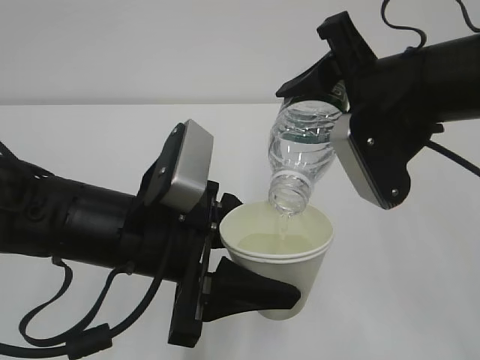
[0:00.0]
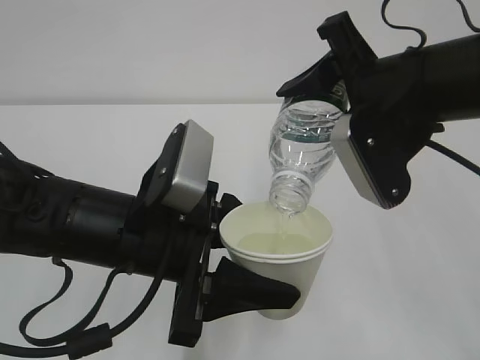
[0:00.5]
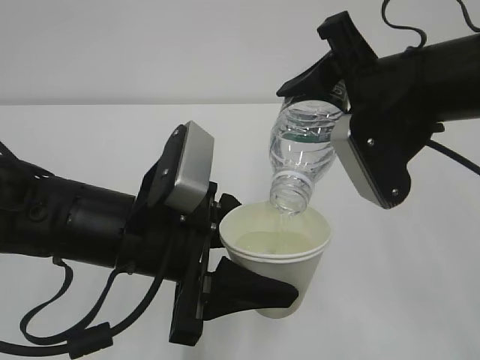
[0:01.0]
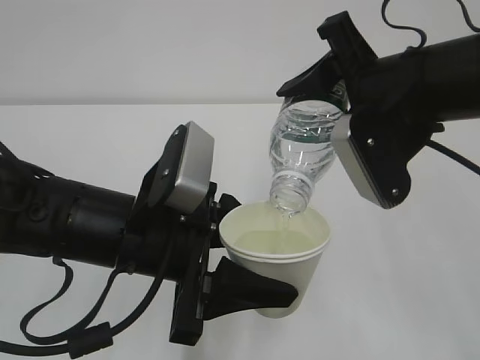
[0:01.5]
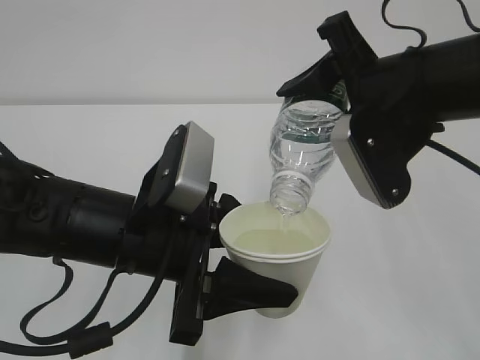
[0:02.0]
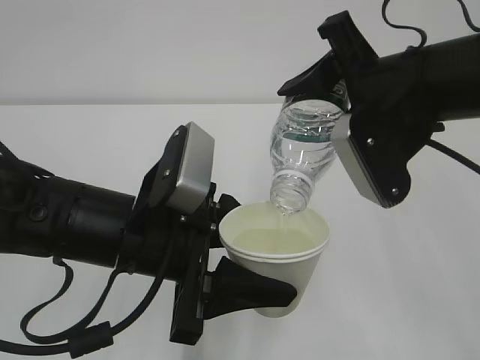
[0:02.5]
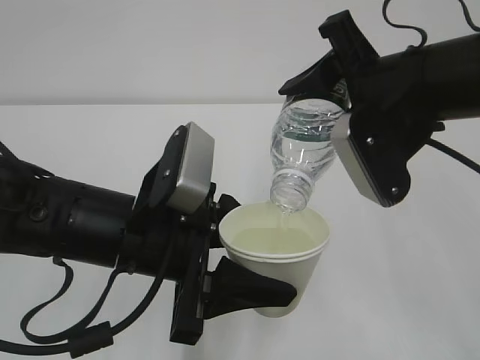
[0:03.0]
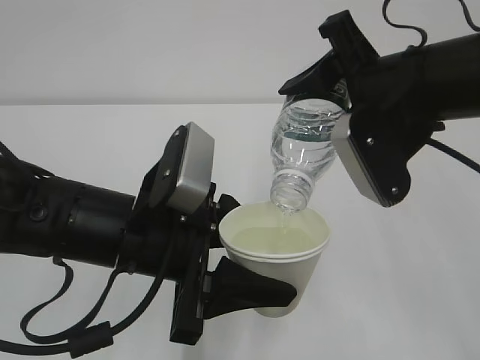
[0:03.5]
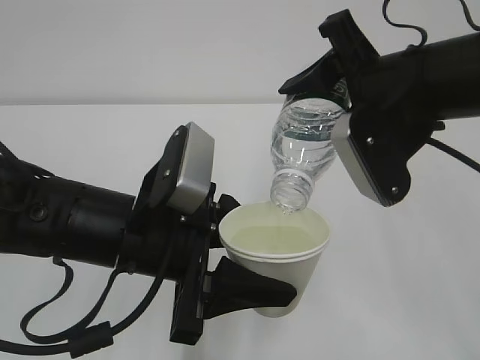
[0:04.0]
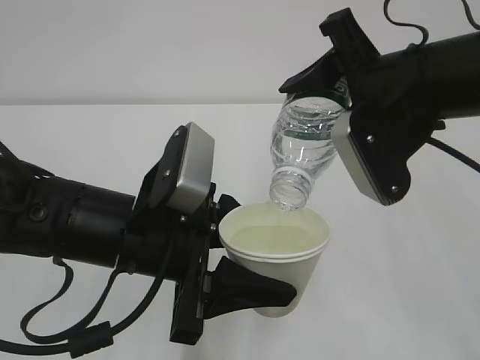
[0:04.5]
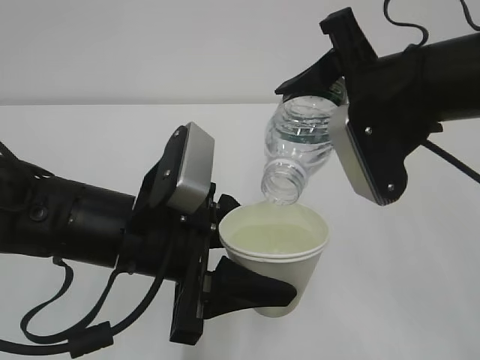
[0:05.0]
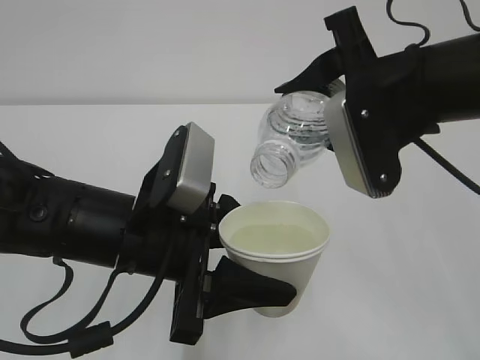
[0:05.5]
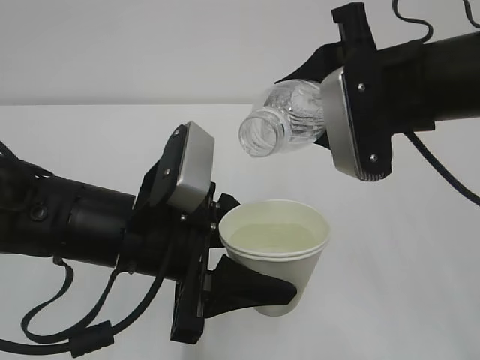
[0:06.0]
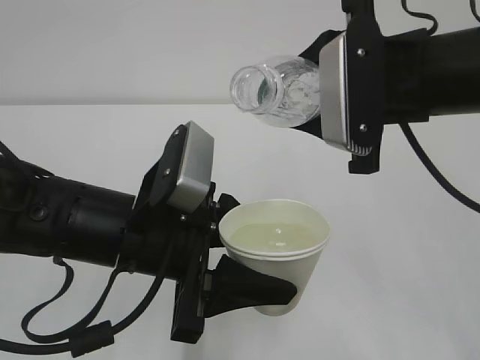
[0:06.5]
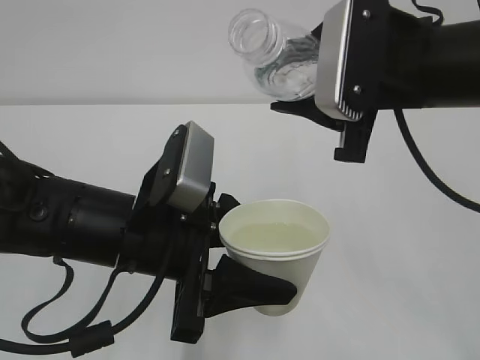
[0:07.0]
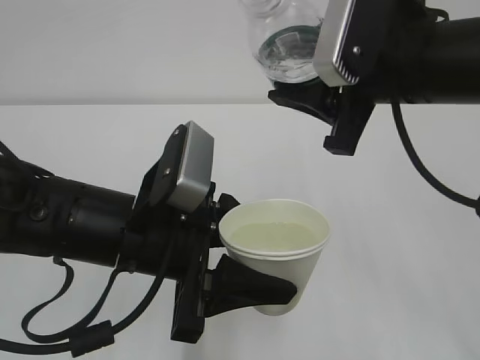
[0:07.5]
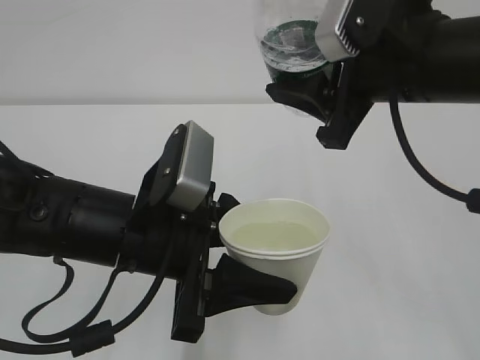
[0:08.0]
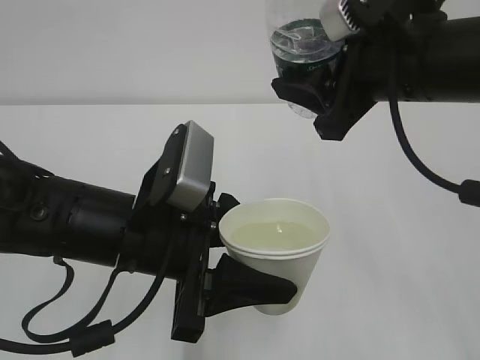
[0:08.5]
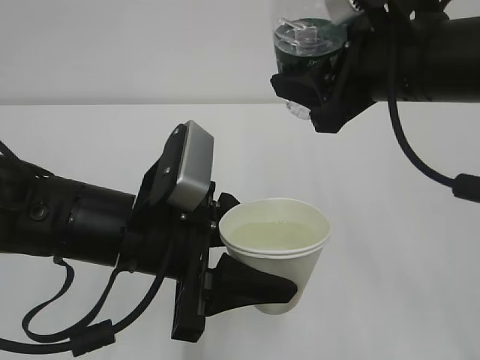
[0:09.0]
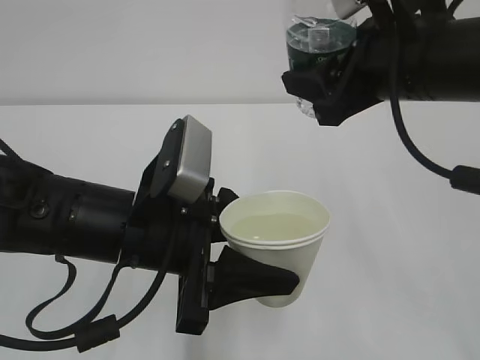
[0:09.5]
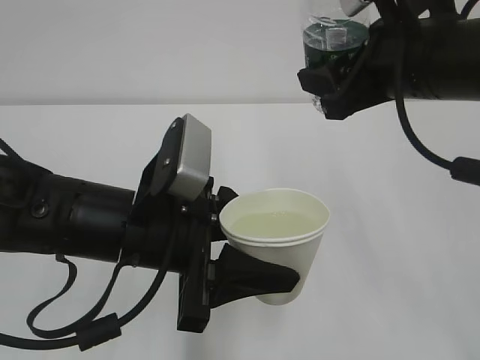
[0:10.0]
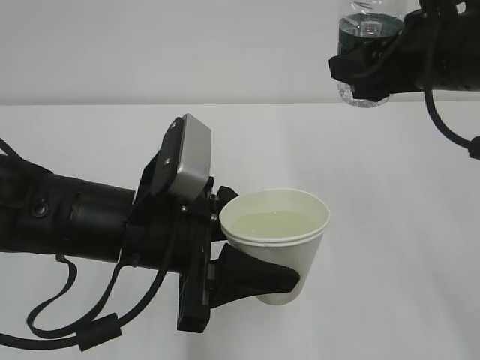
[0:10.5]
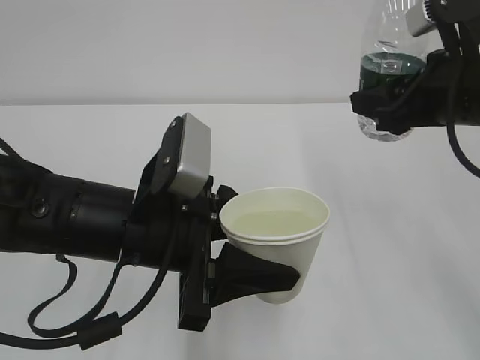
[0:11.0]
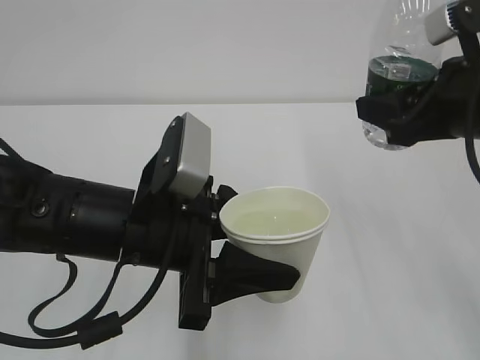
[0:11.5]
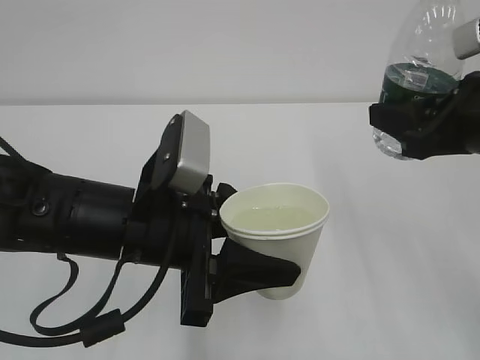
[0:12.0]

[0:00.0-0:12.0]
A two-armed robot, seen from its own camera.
0:00.0 to 0:04.0: Neither gripper changes place.
0:10.0 to 0:12.0: The right gripper heads to the right, covering roughly 5 cm.

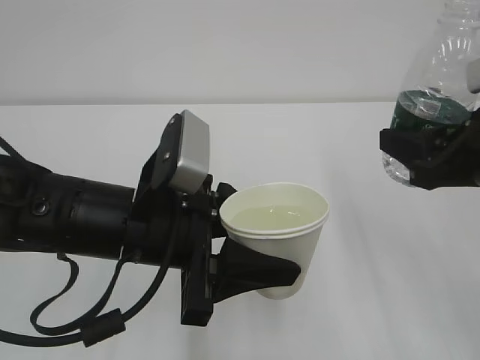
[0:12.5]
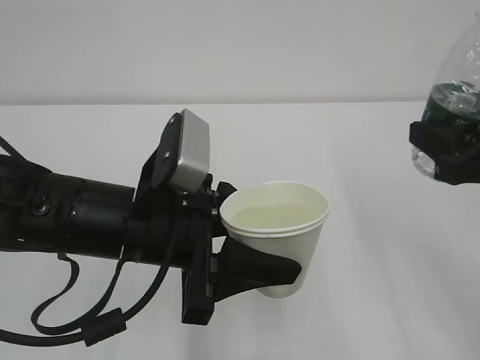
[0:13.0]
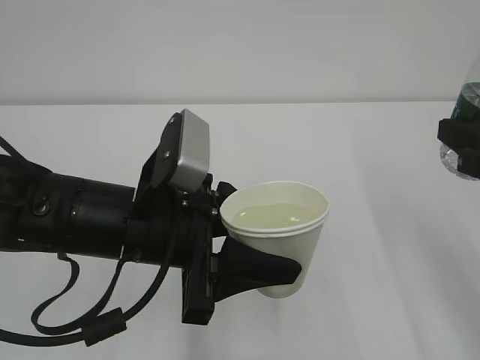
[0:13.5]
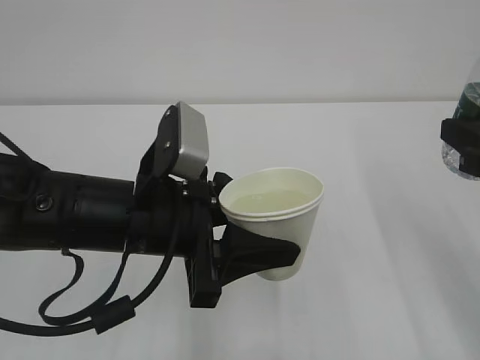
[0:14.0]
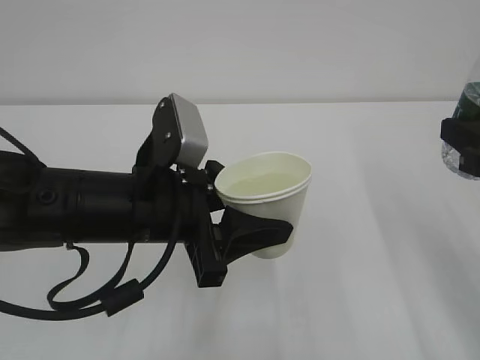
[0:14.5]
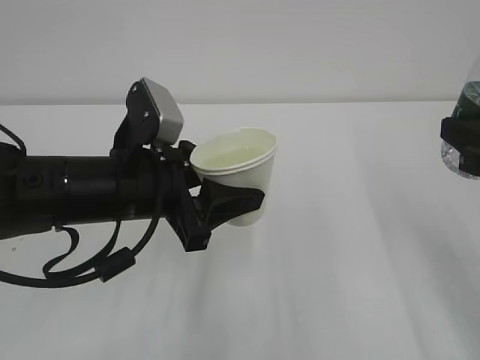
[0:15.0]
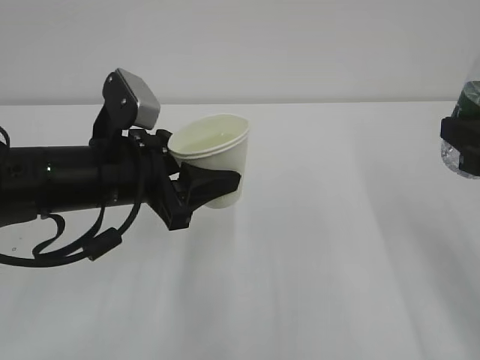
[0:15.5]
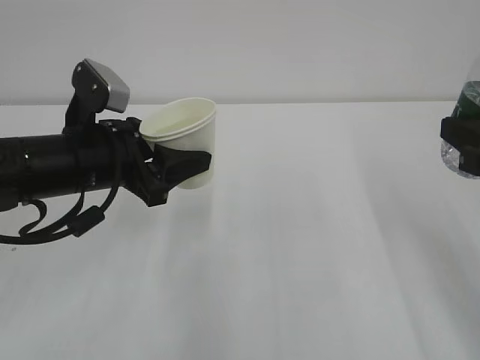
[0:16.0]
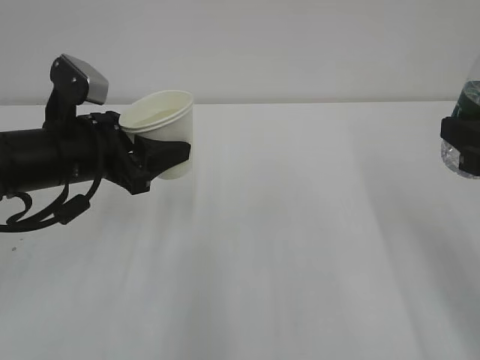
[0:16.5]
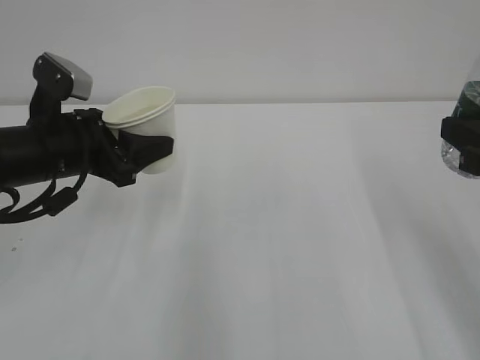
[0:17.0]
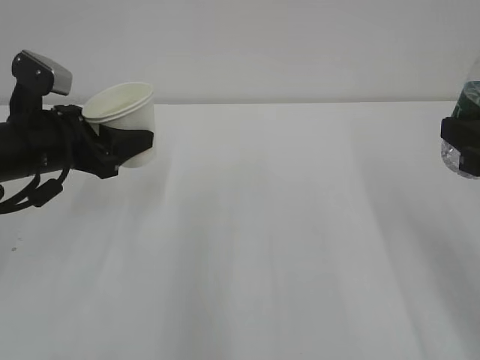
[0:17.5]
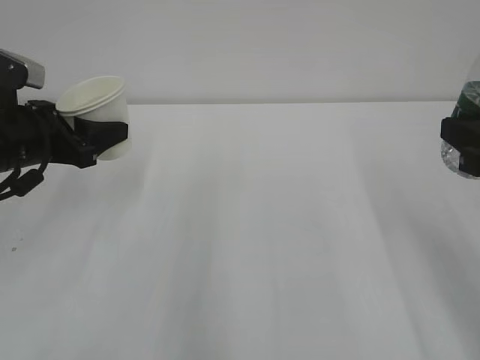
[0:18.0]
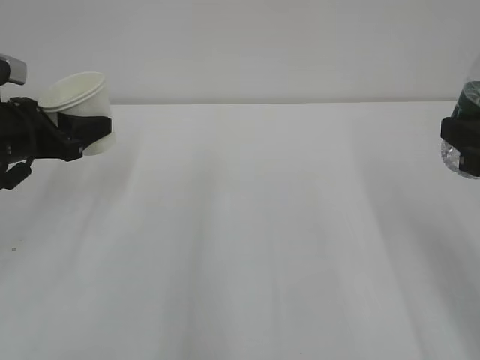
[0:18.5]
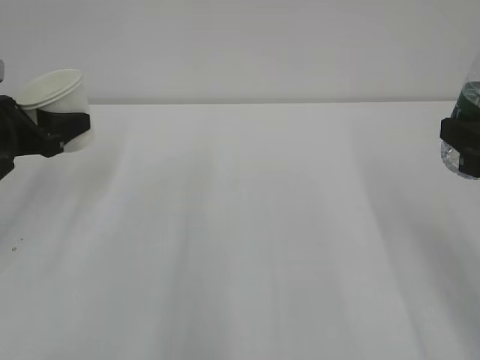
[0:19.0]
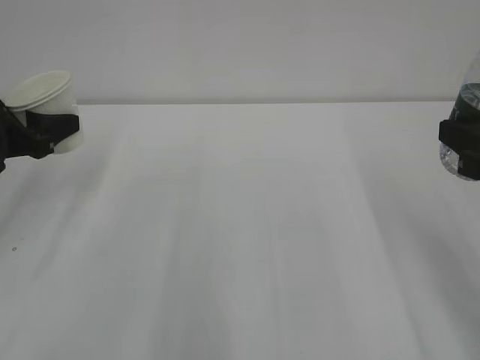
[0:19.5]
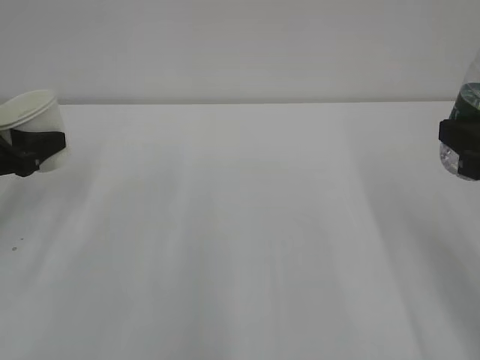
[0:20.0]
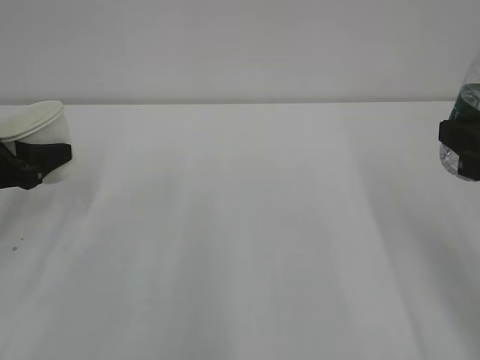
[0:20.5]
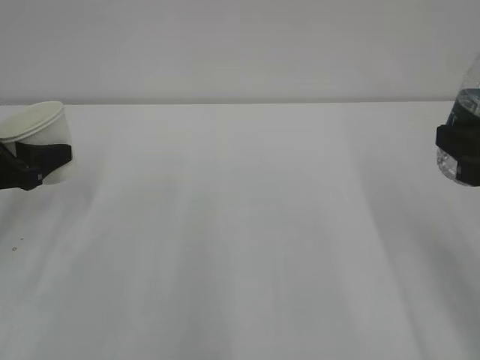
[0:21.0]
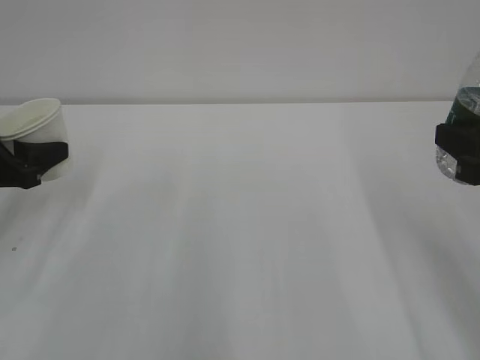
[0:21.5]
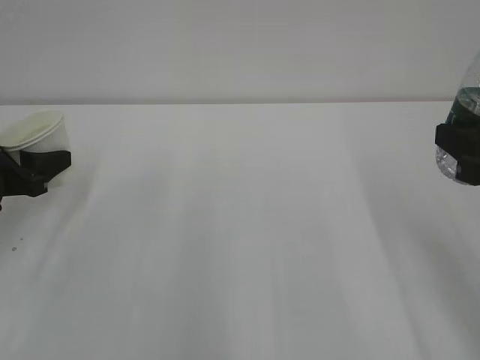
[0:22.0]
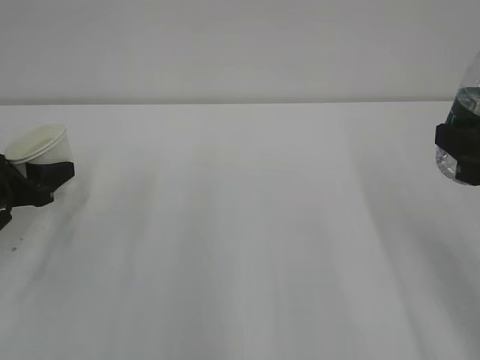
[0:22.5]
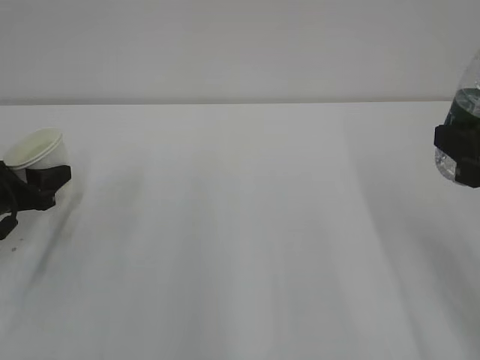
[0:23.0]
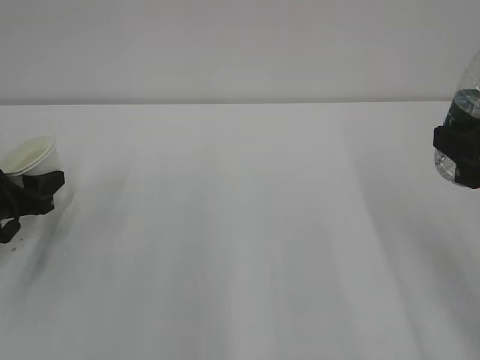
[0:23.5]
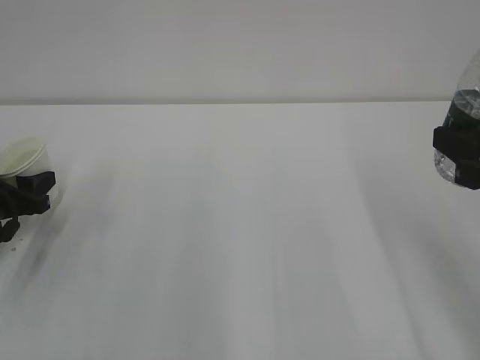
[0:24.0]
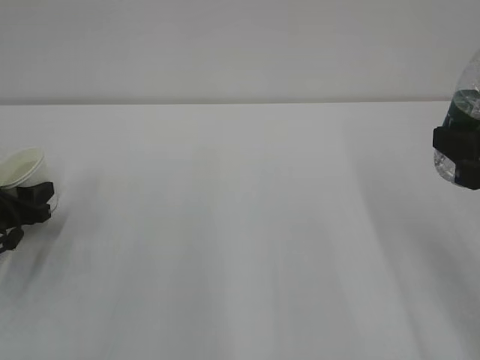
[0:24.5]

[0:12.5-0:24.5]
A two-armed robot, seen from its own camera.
0:12.5 to 0:14.5: The grippers move only a little.
0:14.5 to 0:16.5: The left gripper travels to the left and forward by some 10 cm.
0:16.5 to 0:18.5: The left gripper moves to the left, some 10 cm.
0:18.5 to 0:20.5: The left gripper ends up roughly 5 cm from where it was.
0:20.5 to 0:22.5: The grippers stay close to where they were, moving slightly.
0:22.5 to 0:24.5: The left gripper shifts roughly 5 cm downward.

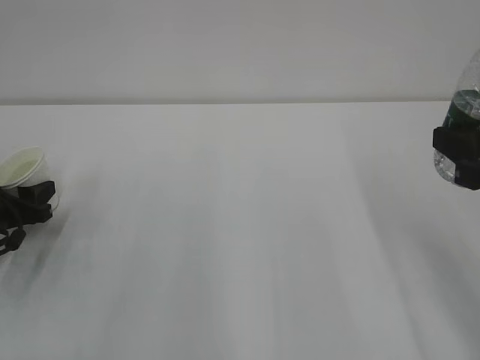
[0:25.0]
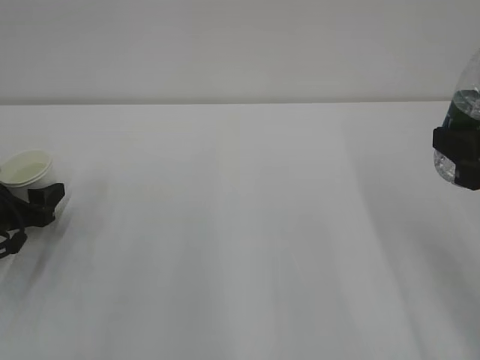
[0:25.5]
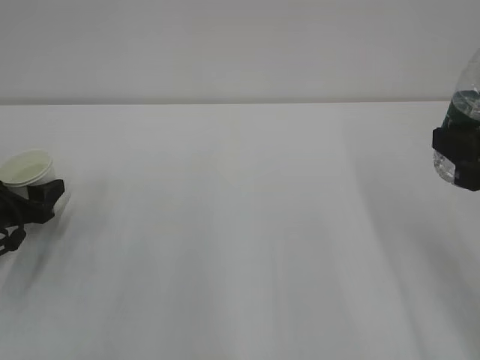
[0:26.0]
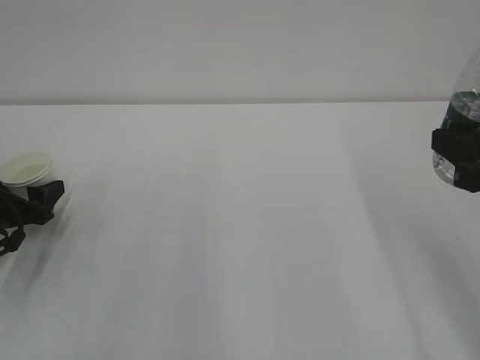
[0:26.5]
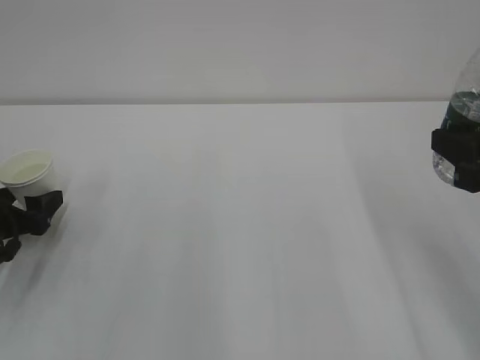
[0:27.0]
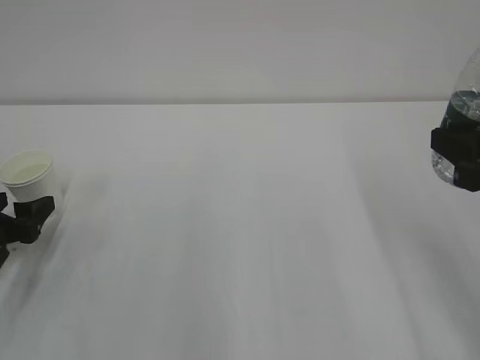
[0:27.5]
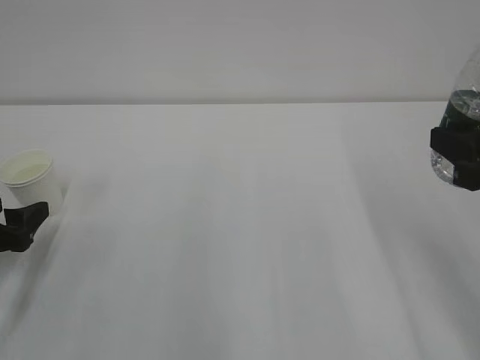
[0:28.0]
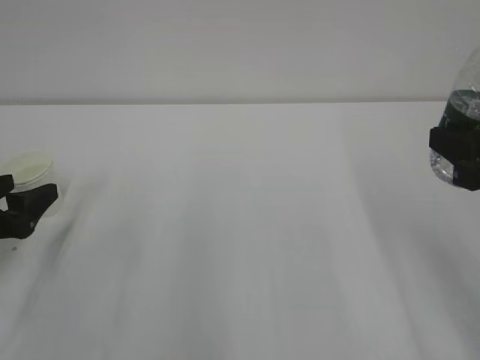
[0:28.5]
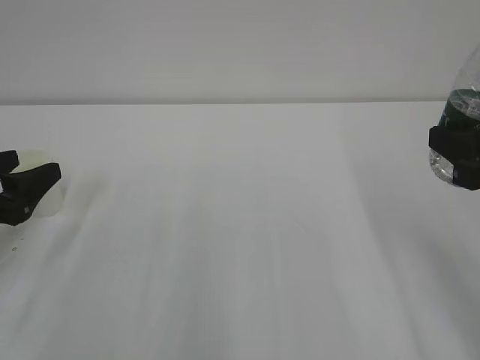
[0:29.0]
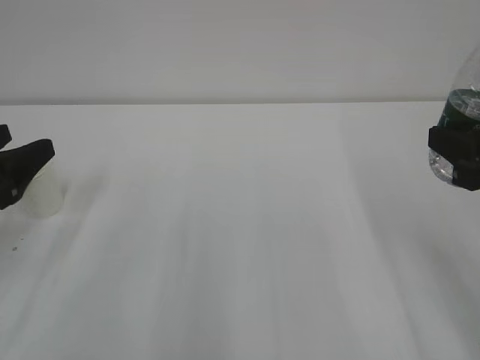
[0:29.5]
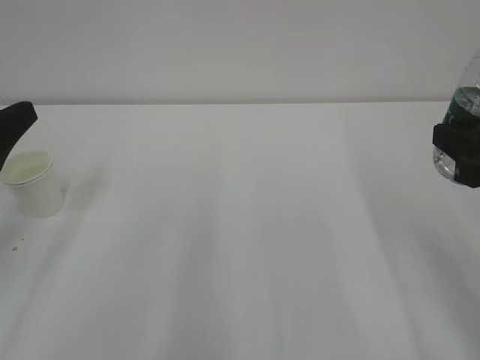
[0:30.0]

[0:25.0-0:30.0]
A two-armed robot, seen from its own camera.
0:25.0 to 0:27.5: The left gripper opens its fingers.
0:27.5 to 0:30.0: The left gripper travels upward by about 15 cm.
